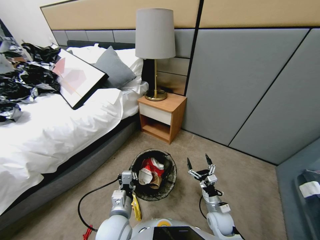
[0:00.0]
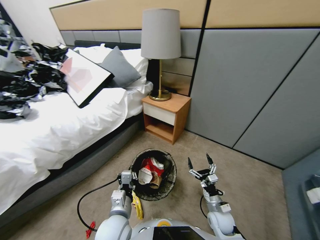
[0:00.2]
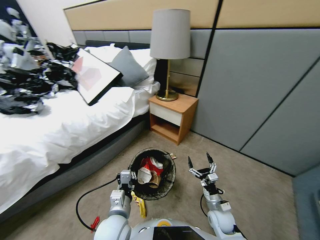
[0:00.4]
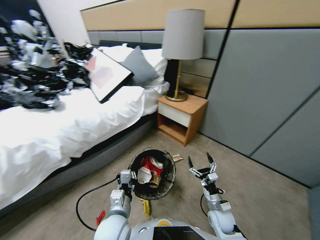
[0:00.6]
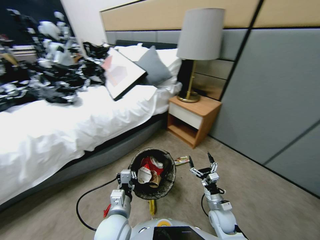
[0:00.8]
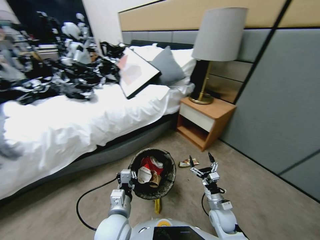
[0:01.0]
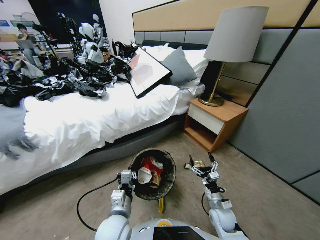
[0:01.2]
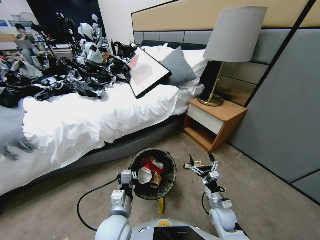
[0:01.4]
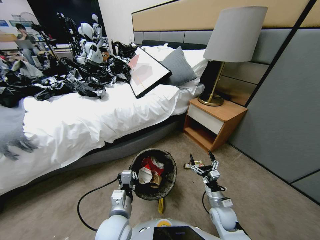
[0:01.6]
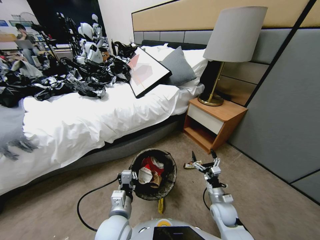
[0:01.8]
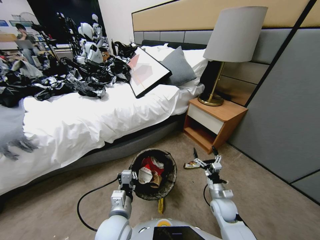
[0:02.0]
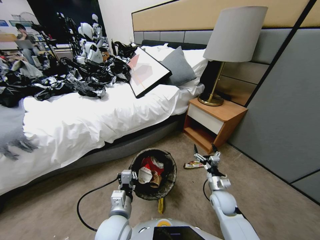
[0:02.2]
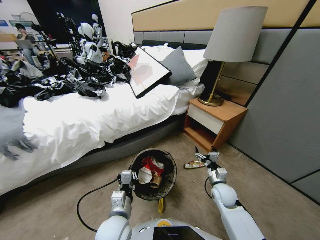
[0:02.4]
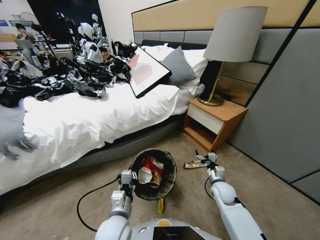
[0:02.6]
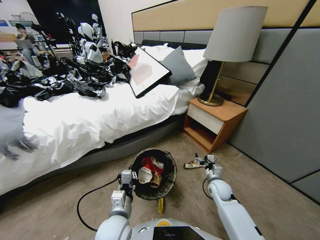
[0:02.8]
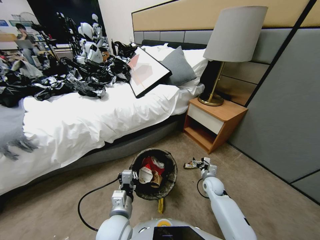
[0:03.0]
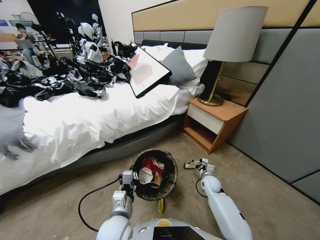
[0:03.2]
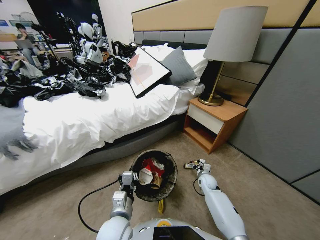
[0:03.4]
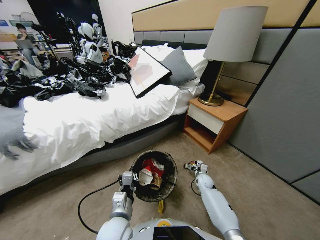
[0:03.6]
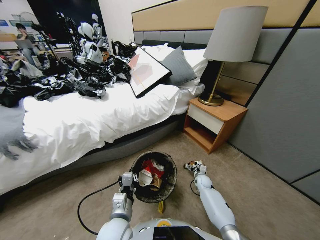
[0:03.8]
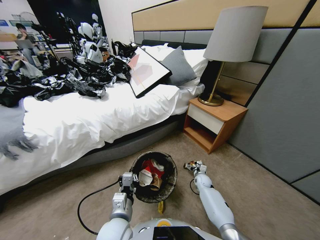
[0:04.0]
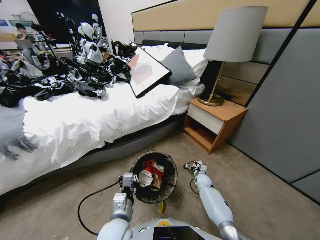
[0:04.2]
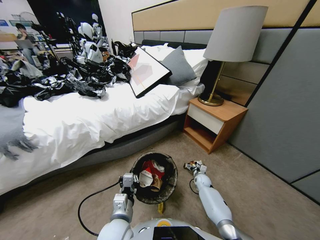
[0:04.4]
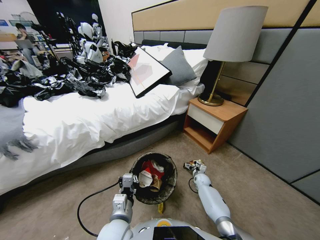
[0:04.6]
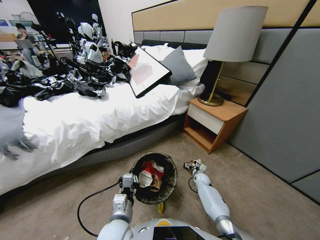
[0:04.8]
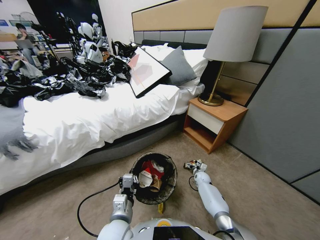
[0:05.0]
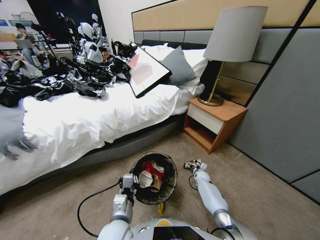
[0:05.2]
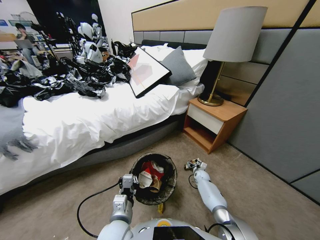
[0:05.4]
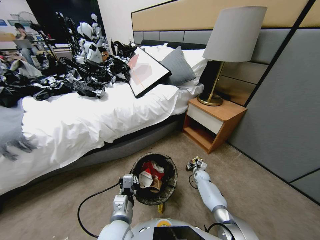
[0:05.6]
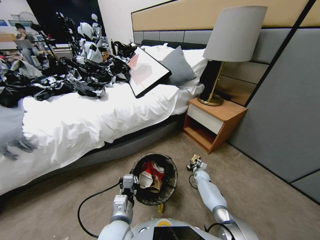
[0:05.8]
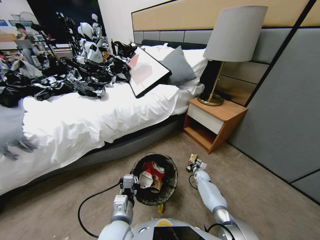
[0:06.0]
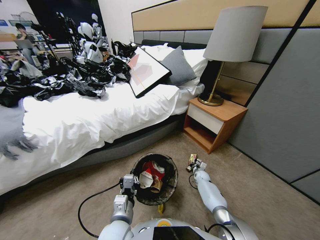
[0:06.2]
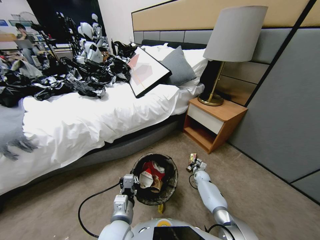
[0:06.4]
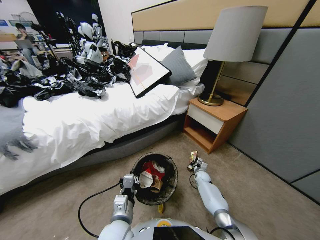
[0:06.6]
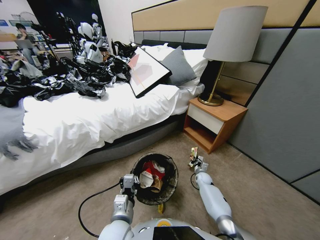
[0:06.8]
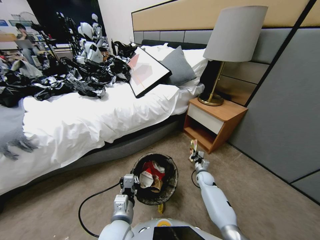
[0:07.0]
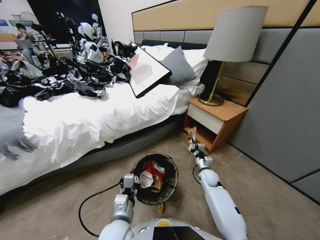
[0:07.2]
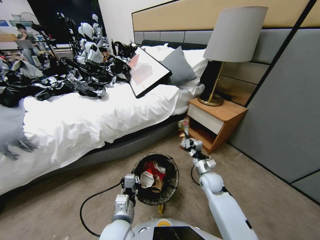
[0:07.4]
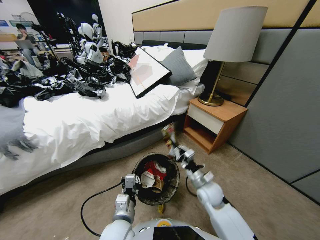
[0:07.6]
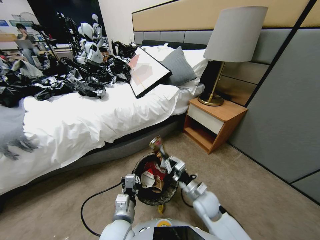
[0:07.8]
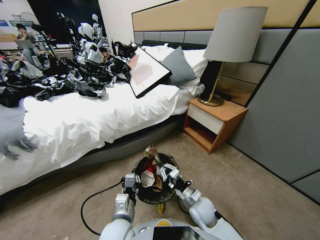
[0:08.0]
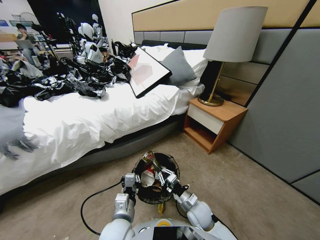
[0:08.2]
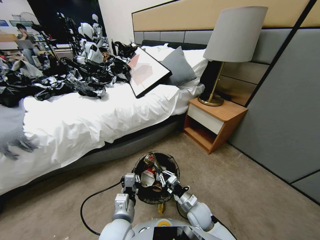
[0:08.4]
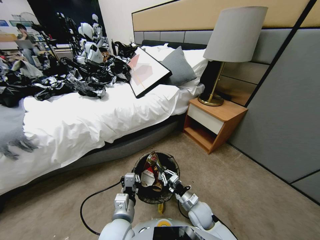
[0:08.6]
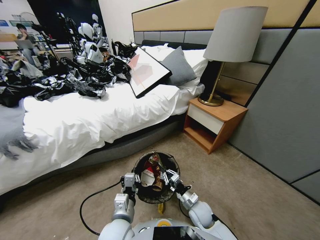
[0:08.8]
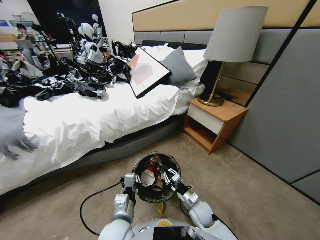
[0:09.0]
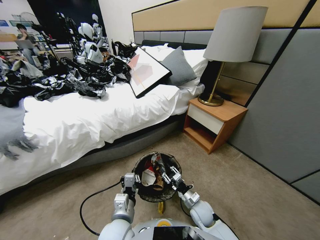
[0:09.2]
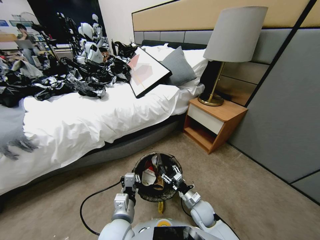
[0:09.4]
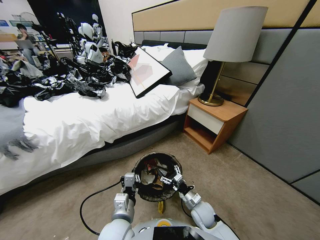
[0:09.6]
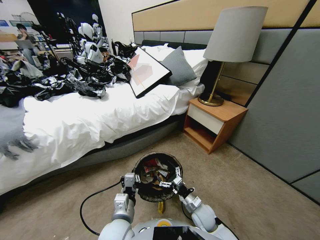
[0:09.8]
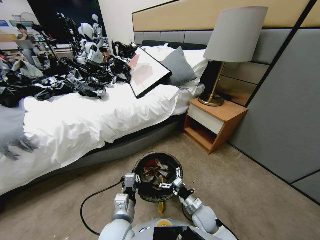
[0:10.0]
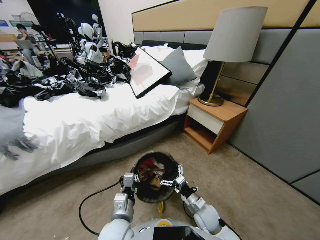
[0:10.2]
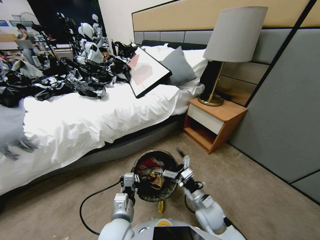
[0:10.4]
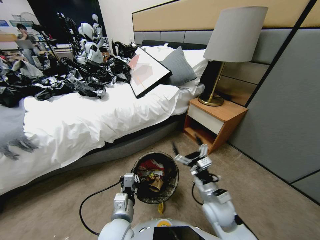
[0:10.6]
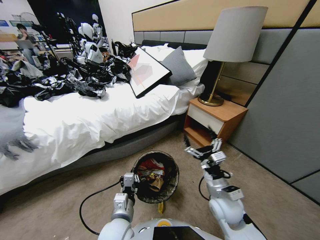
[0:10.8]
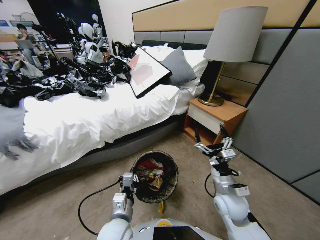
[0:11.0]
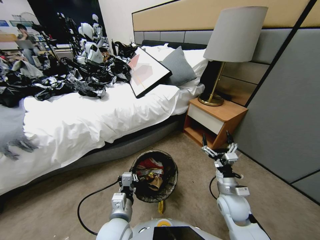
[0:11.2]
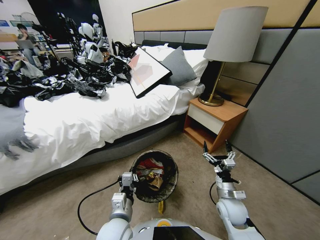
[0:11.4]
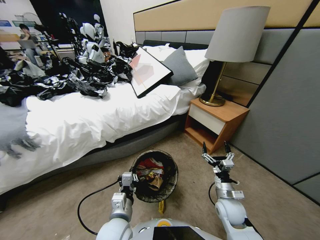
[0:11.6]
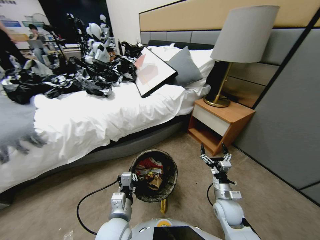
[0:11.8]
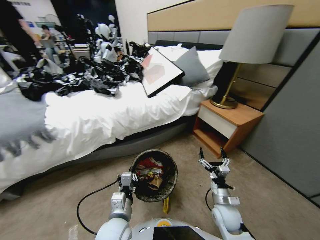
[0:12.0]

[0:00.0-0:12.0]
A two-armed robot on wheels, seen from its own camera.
Task of the whole recording: Pick up the trash bin, then pick up the garbage from the floor and place it into the trash bin.
0:01.6 to 0:03.0: The right gripper travels forward by about 15 cm.
0:03.0 to 0:04.4: The right gripper goes about 10 cm downward and forward.
0:04.4 to 0:06.0: The right gripper closes up.
0:06.0 to 0:07.6: The right gripper shifts about 30 cm upward, backward and to the left.
0:07.6 to 0:09.0: The right gripper shifts roughly 10 cm downward.
0:09.0 to 0:10.4: The right gripper shifts about 15 cm upward, and opens.
0:10.4 to 0:12.0: The right gripper heads downward and to the right, covering roughly 10 cm.

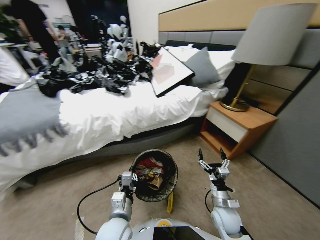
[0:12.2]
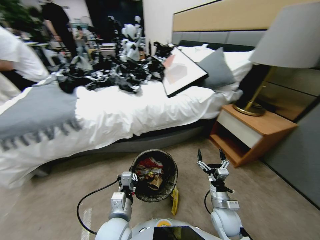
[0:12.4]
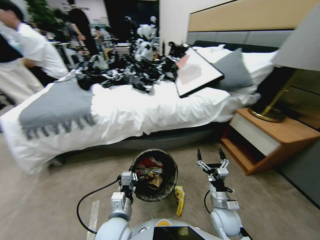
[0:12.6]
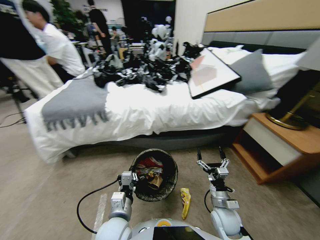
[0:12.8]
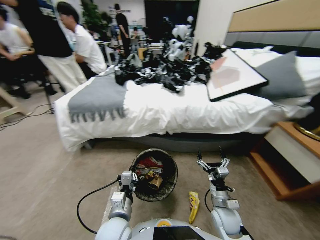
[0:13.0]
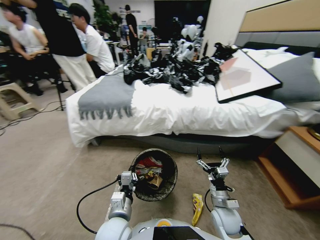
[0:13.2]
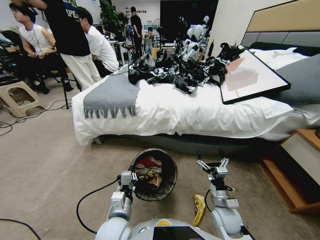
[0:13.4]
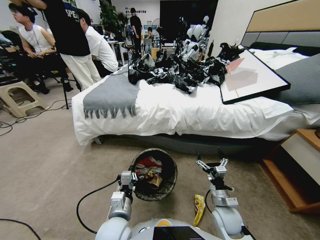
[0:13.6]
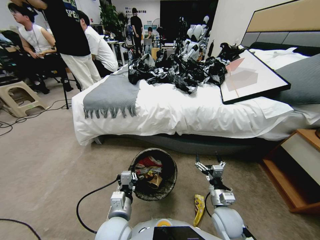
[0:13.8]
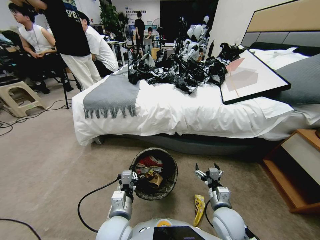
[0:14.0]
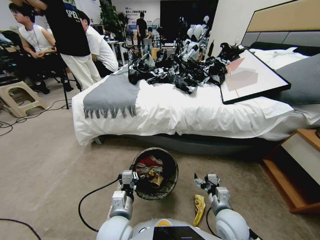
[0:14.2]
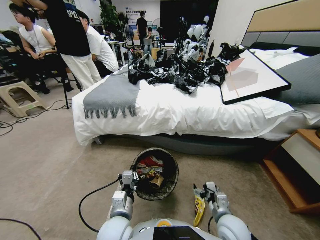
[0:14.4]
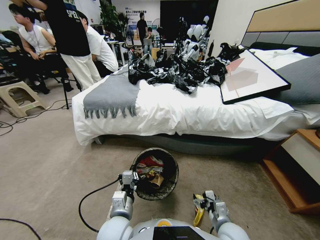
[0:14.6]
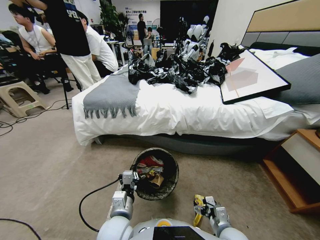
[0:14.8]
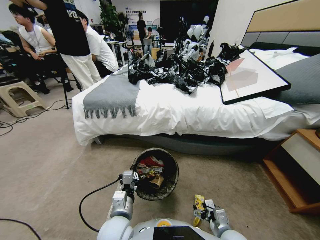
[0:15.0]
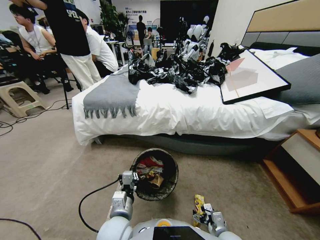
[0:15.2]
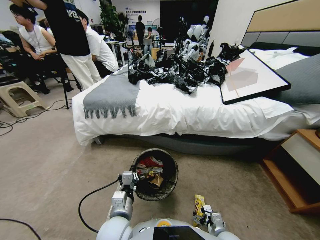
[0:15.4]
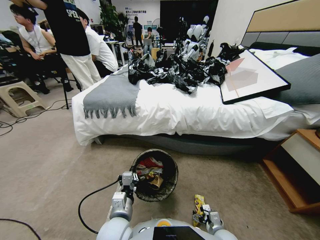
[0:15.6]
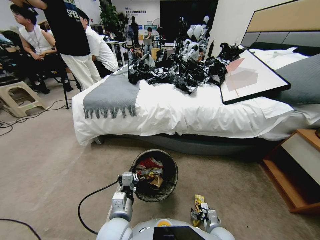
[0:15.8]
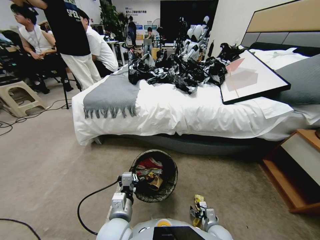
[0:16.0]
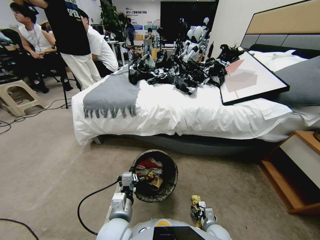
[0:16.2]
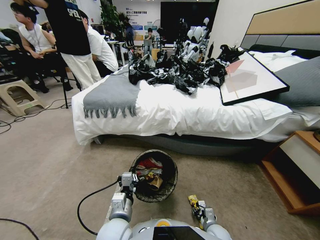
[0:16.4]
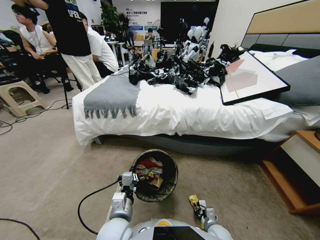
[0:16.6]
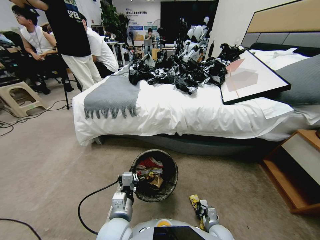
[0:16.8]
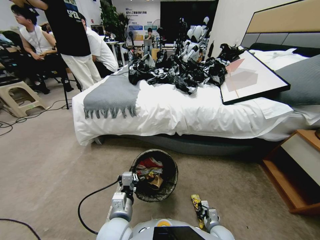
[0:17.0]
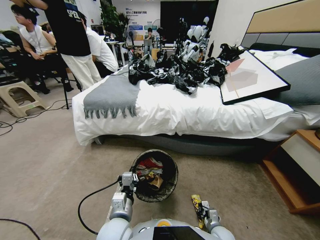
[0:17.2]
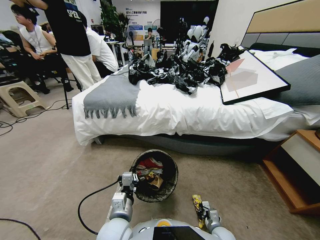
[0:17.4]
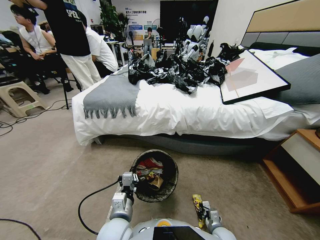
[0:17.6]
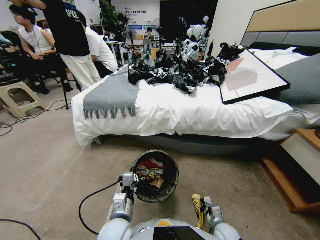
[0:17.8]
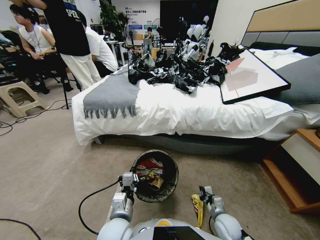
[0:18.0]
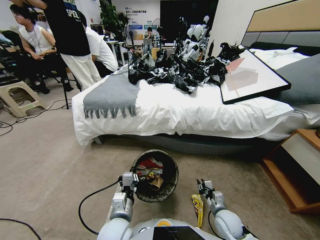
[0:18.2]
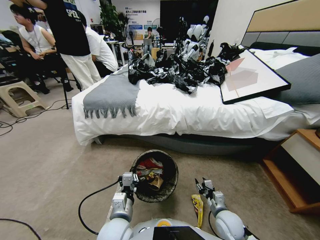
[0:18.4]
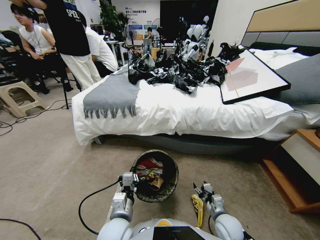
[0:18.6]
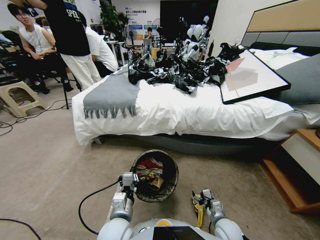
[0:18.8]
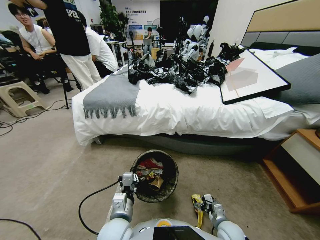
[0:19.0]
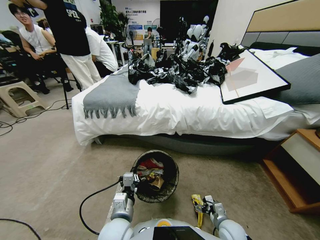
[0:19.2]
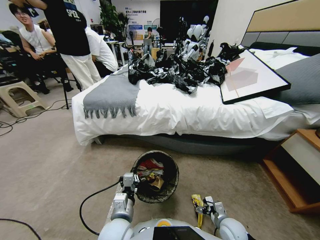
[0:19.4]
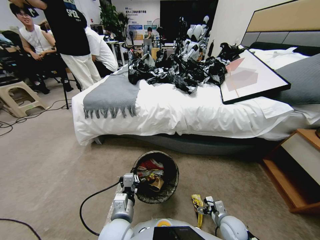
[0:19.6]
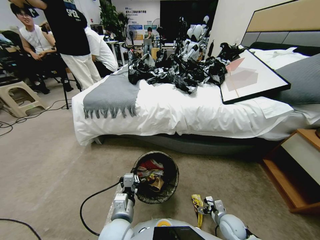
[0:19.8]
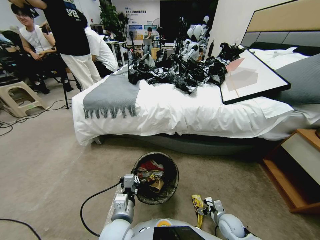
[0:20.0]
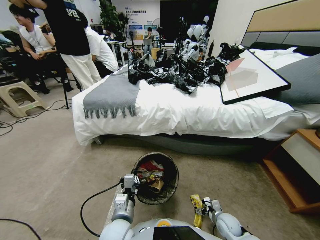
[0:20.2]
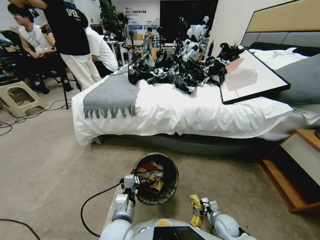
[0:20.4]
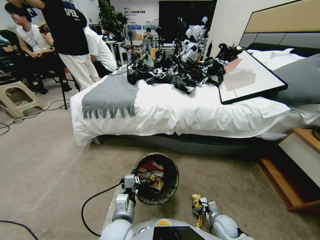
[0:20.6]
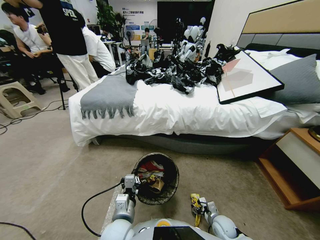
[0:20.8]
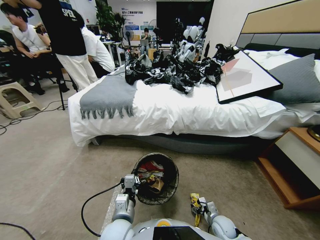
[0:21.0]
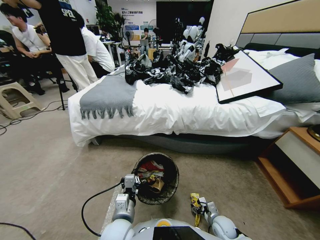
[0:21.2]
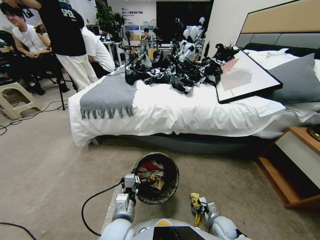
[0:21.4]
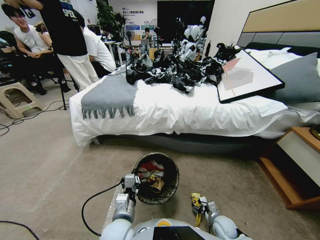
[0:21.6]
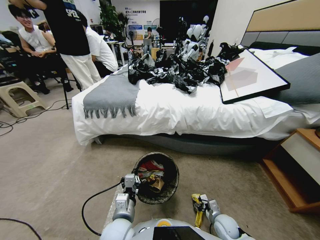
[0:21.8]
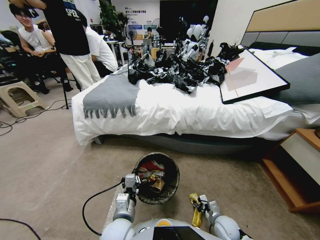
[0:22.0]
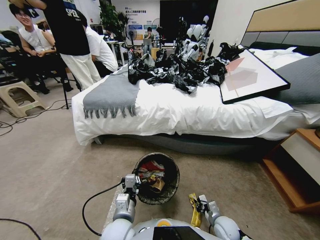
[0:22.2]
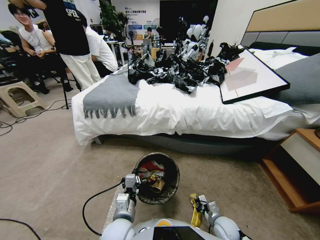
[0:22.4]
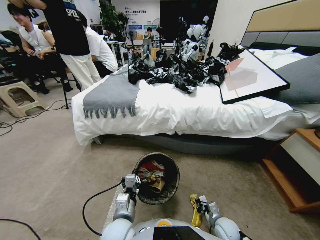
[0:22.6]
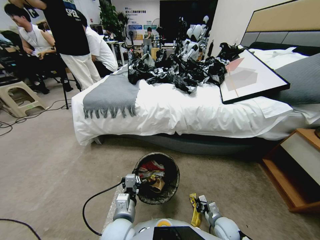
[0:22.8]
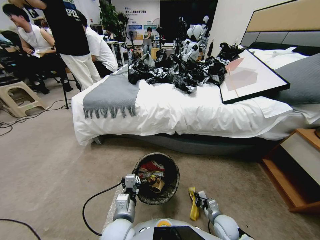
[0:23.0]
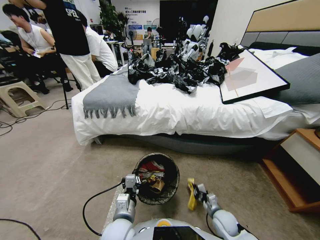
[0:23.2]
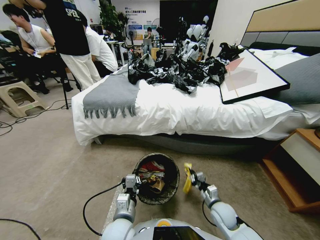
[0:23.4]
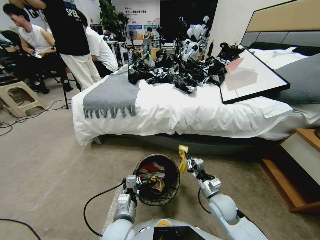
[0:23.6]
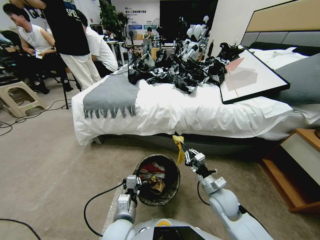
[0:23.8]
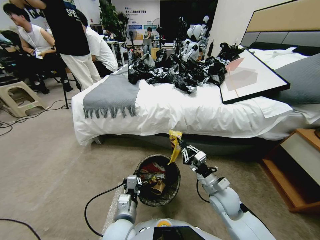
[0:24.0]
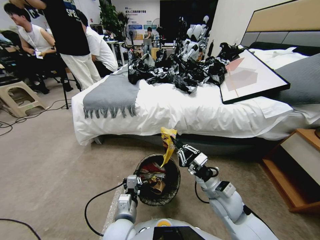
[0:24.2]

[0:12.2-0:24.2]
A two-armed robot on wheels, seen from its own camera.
Task of the whole recording: Pick up the trash bin, then pick up the garbage from the floor and place it into the trash bin.
0:13.8 to 0:15.2: The right gripper is displaced downward and backward by about 10 cm.
0:15.2 to 0:16.6: The right gripper moves downward, some 10 cm, and closes its fingers.
0:16.6 to 0:18.2: The right gripper goes approximately 10 cm upward.
0:18.2 to 0:19.8: The right gripper heads downward, covering some 5 cm, and opens.
0:21.2 to 0:22.6: The right gripper closes.
0:22.6 to 0:24.2: The right gripper travels upward by approximately 25 cm.
